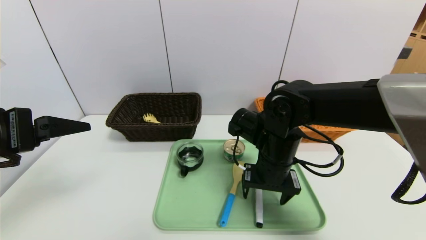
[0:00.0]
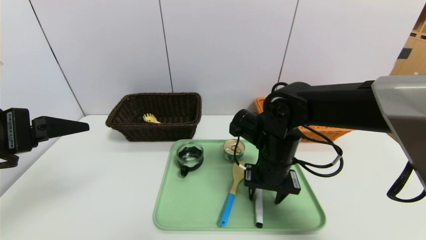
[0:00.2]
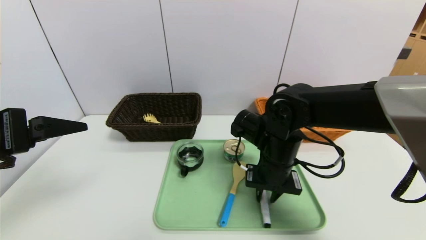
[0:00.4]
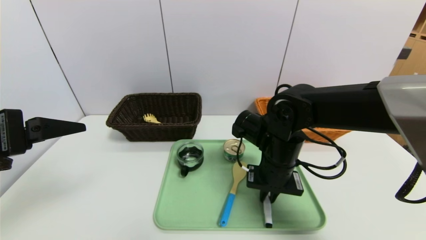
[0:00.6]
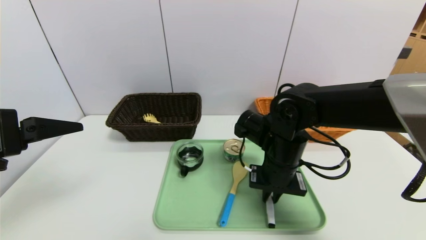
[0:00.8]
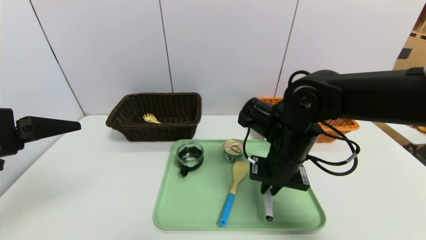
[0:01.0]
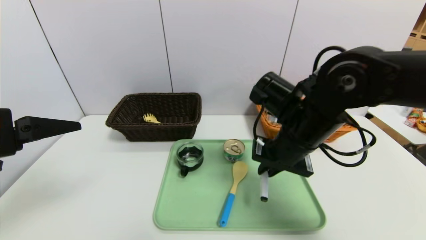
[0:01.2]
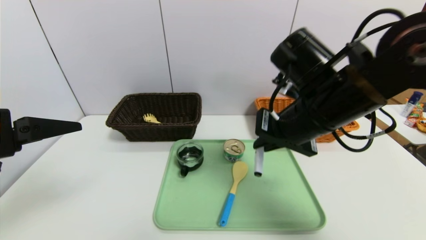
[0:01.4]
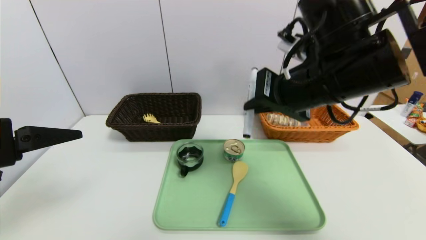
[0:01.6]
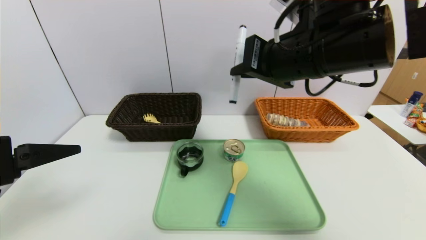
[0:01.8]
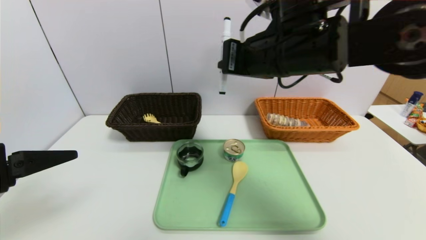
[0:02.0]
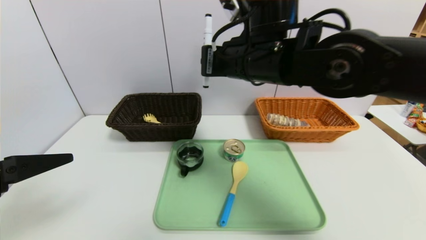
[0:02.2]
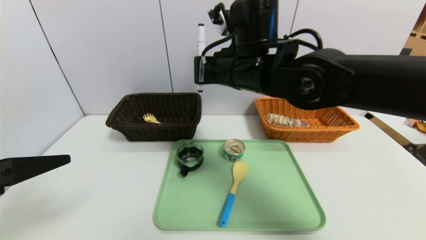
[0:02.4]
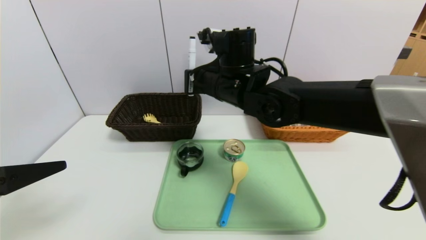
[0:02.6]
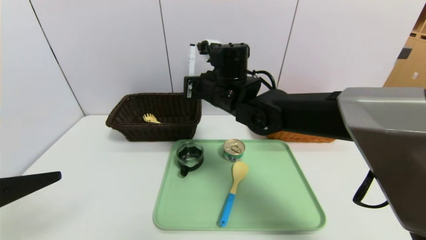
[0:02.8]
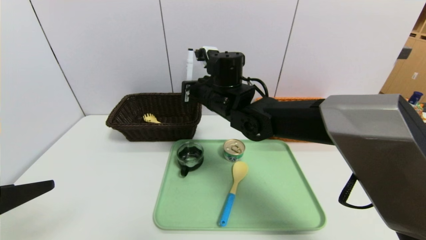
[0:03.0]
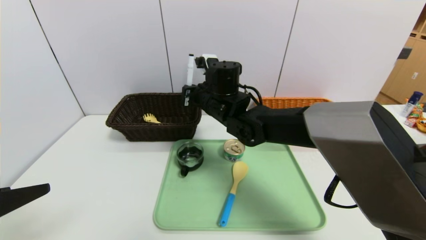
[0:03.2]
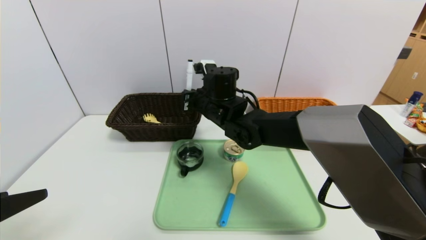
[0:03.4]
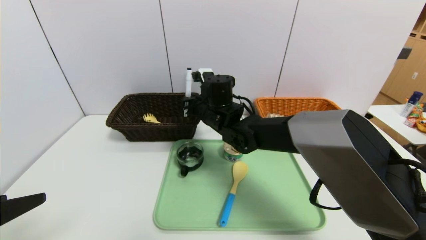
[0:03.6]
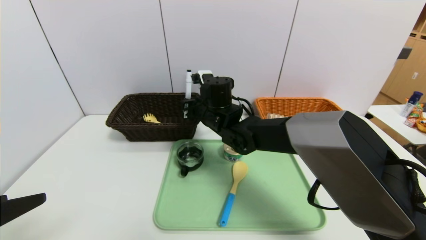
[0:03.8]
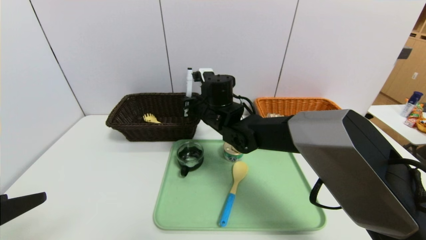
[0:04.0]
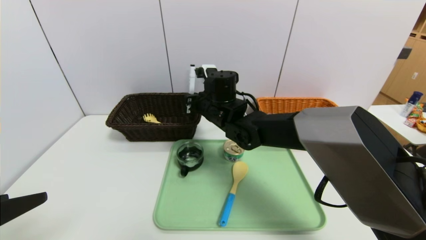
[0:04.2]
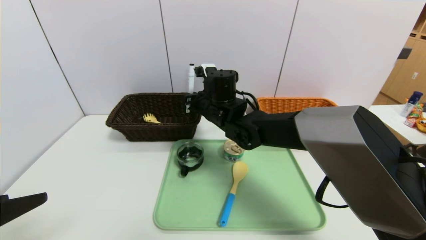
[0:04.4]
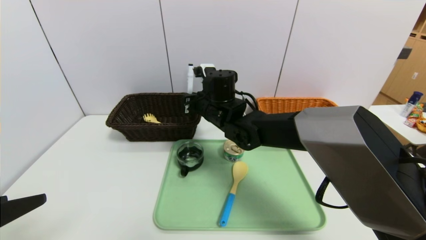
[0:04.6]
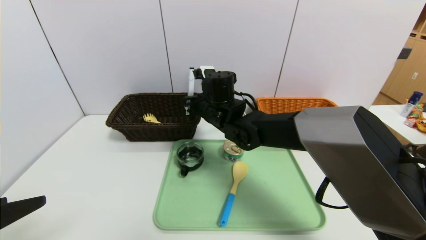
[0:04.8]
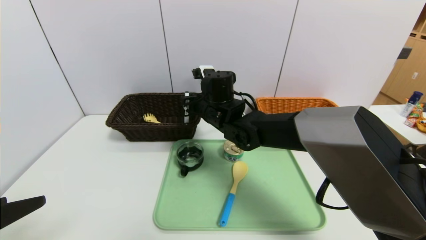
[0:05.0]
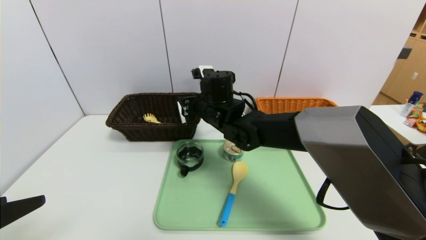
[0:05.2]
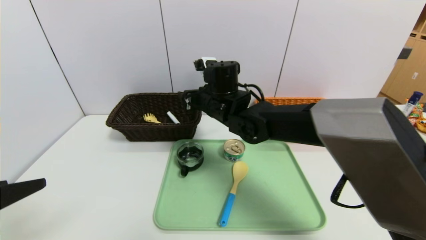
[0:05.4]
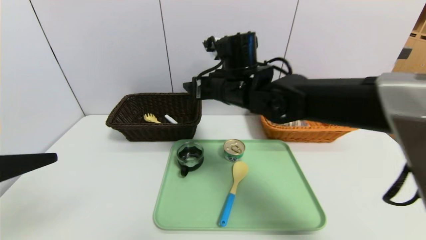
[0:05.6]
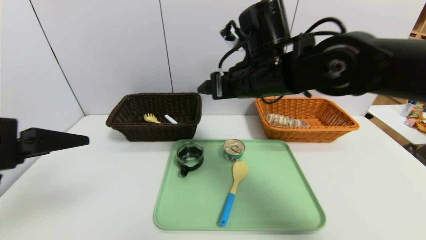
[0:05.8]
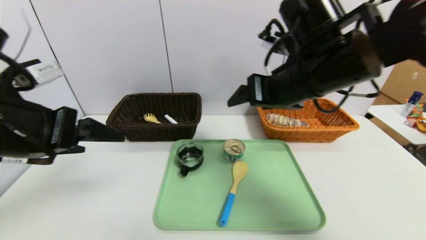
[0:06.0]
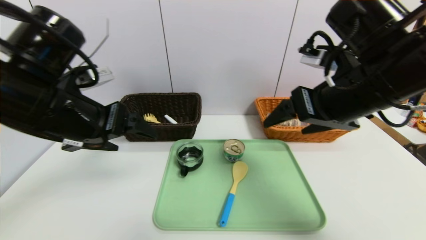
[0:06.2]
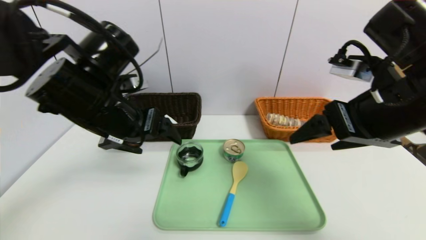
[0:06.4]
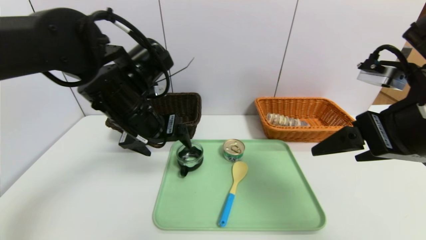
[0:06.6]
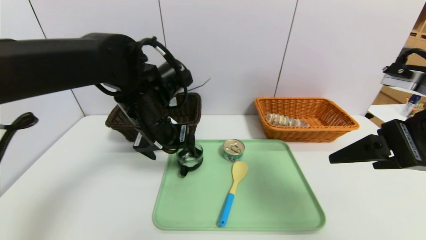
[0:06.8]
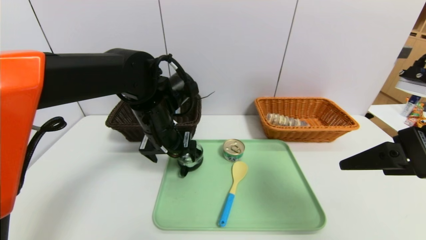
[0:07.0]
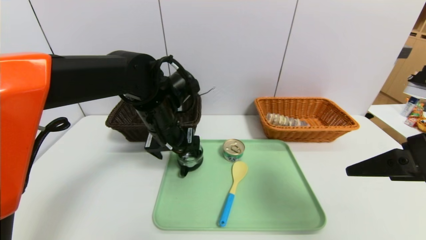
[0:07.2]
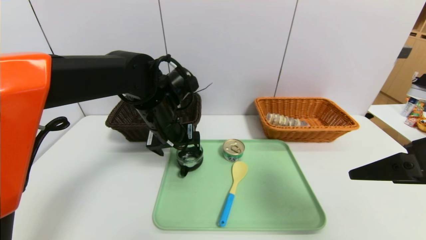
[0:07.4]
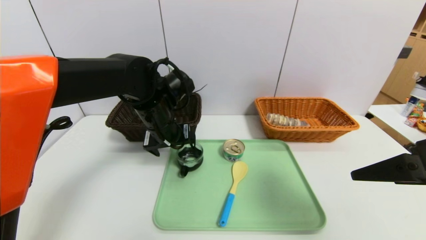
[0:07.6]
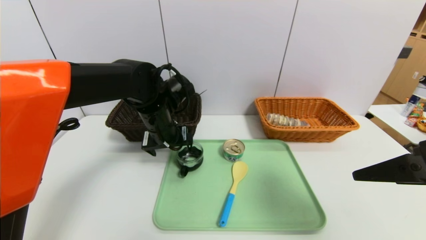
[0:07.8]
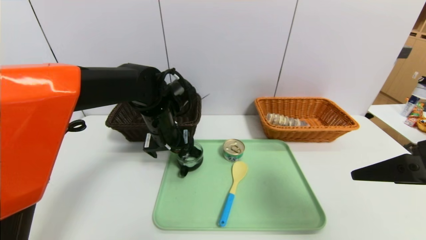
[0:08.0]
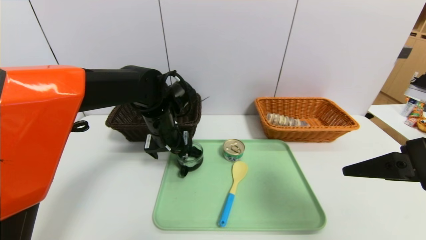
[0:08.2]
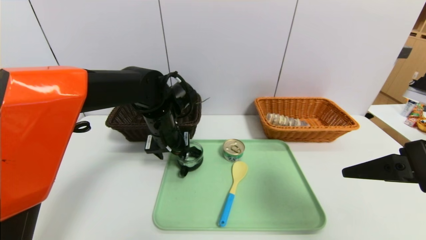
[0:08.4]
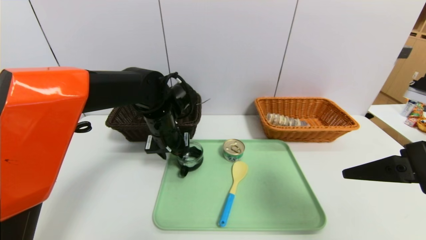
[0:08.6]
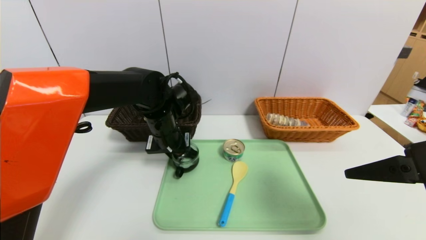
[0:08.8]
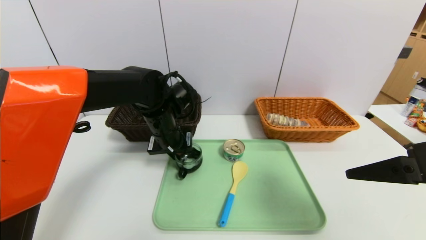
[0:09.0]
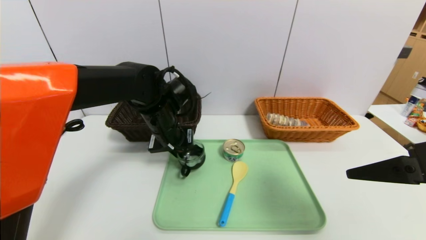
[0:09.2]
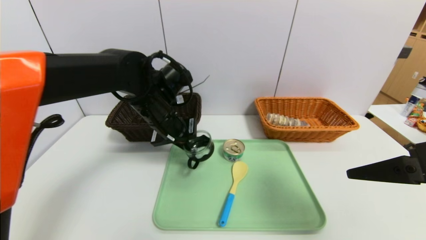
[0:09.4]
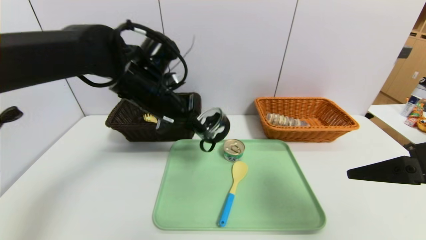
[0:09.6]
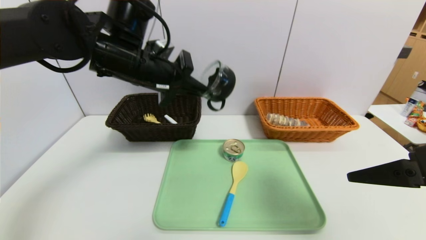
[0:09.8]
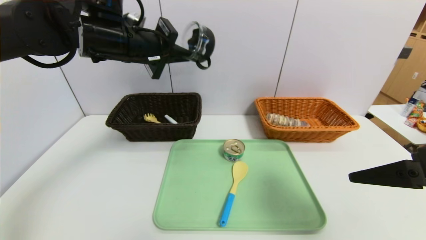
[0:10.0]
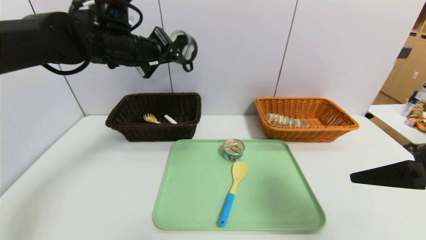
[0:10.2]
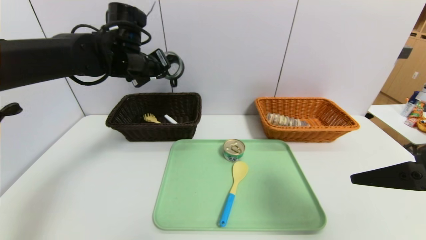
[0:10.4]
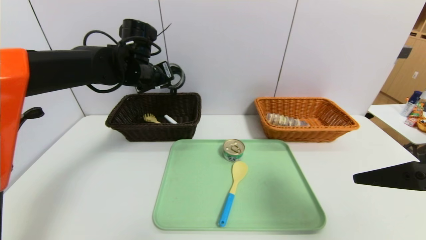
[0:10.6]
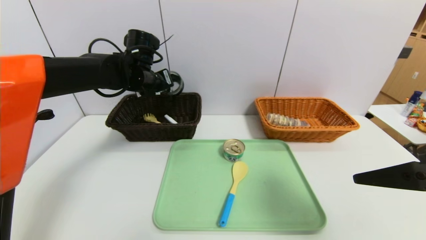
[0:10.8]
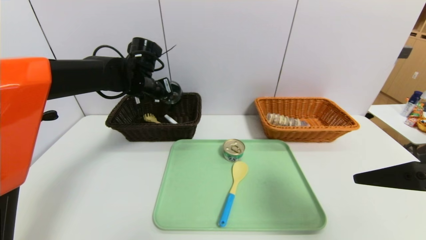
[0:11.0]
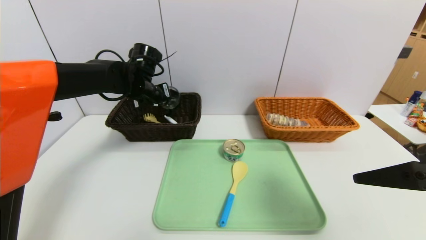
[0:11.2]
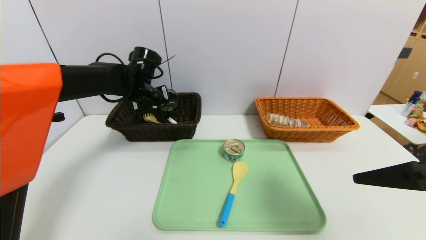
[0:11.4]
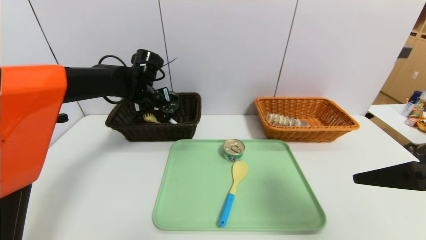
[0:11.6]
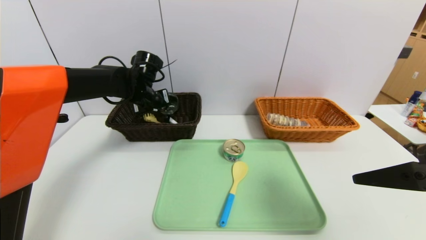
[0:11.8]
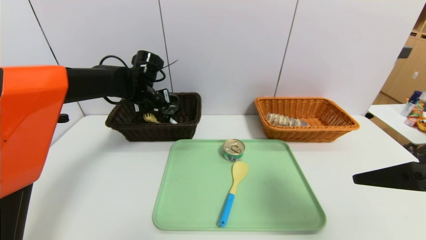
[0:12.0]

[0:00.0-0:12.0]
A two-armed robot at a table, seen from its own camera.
Task of the whole recording: place the food in the right basket with the right gripper, and place the non food items in the left basket with the left gripper.
Step, 0:00.0 to 0:05.2: Grasp the black marker and put it in the left basket.
0:00.0 to 0:01.6: The right gripper travels upward by roughly 15 cm, and closes its fingers.
0:01.6 to 0:03.0: The left gripper goes some 5 cm backward; the right gripper shifts some 20 cm to the left, forward and downward.
0:03.0 to 0:04.4: The grippers move only a little.
0:04.4 to 0:06.0: The left gripper is displaced forward and to the right by roughly 15 cm. Meanwhile the right gripper goes some 25 cm to the right, backward and upward, and opens.
0:06.0 to 0:07.6: The left gripper goes approximately 20 cm forward, to the right and downward. Meanwhile the right gripper travels backward and to the right by about 20 cm.
0:07.6 to 0:09.0: The left gripper closes up.
0:09.0 to 0:10.4: The left gripper travels upward and to the left by roughly 15 cm.
0:10.4 to 0:12.0: The left gripper goes some 10 cm downward.

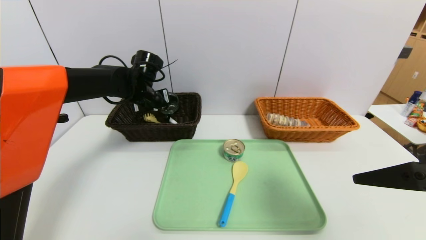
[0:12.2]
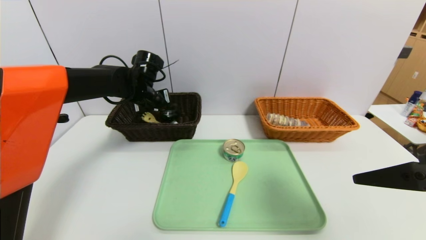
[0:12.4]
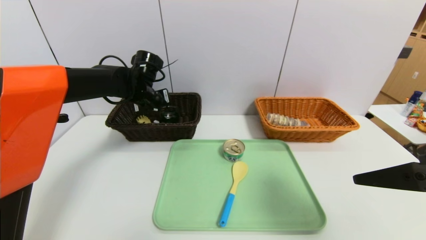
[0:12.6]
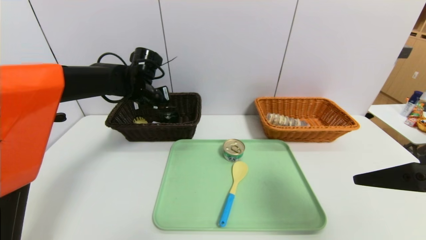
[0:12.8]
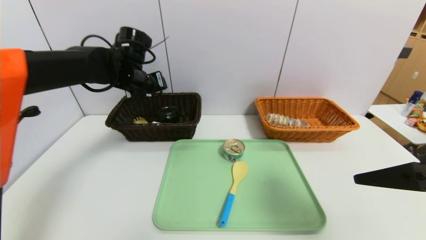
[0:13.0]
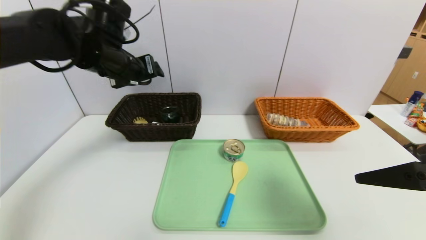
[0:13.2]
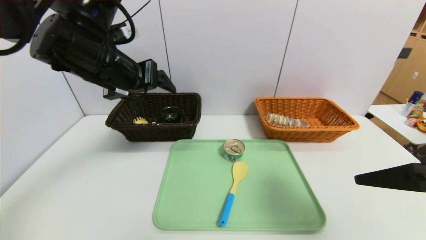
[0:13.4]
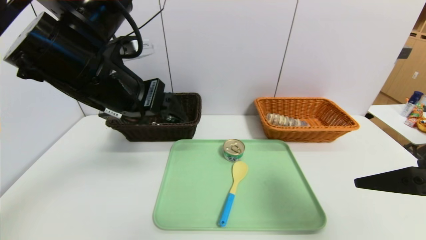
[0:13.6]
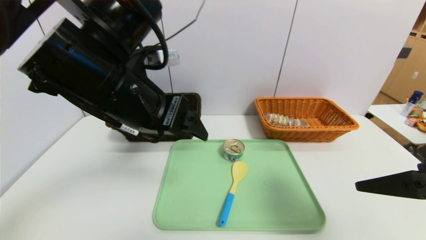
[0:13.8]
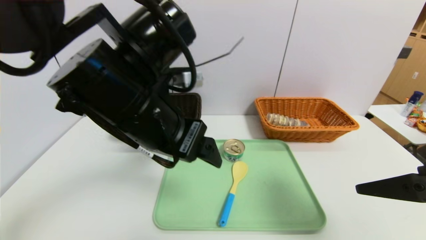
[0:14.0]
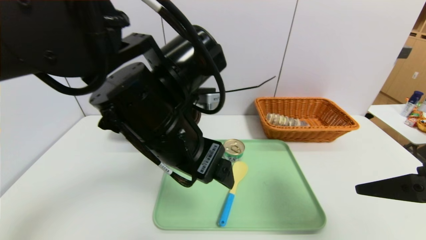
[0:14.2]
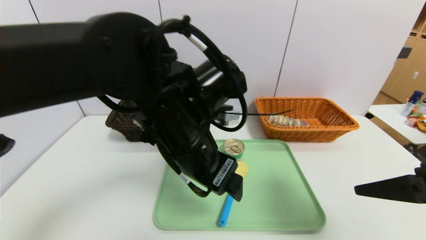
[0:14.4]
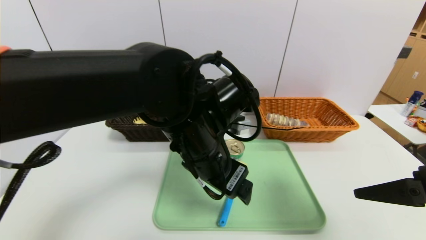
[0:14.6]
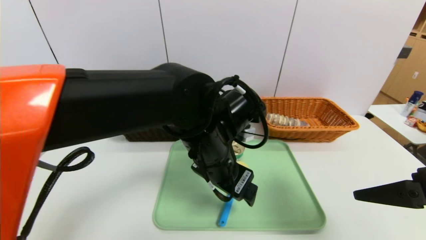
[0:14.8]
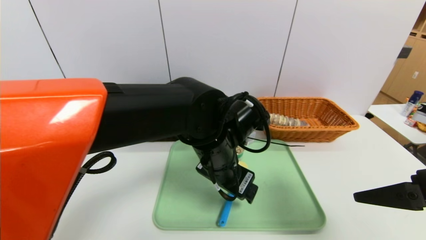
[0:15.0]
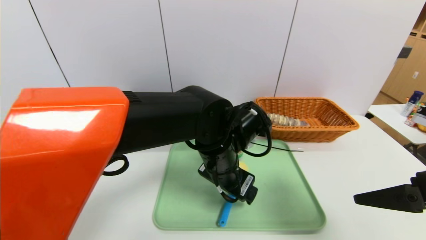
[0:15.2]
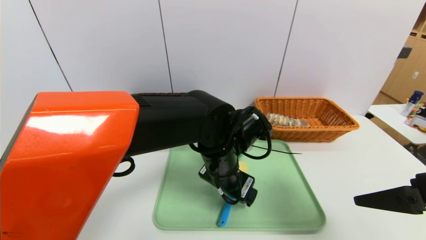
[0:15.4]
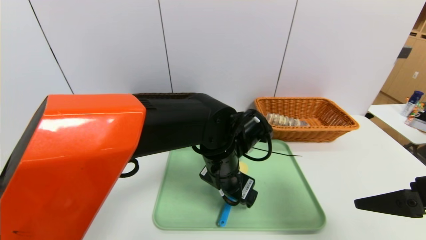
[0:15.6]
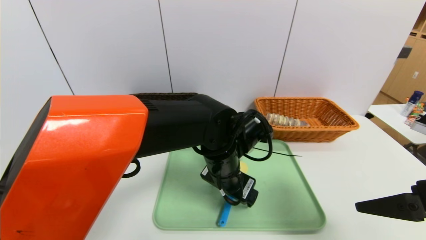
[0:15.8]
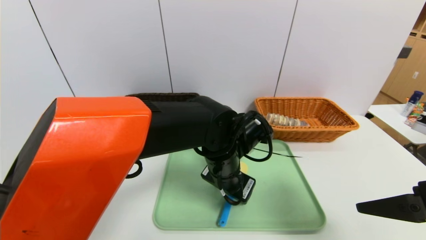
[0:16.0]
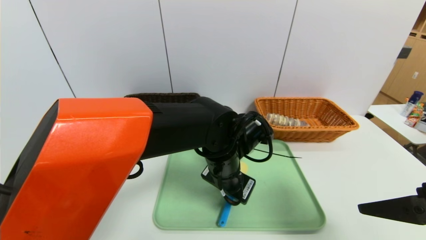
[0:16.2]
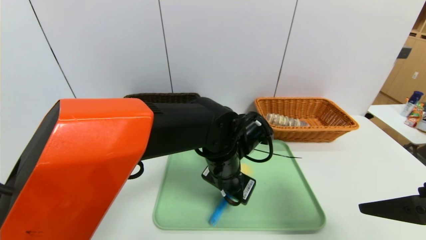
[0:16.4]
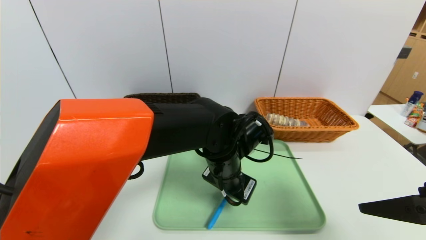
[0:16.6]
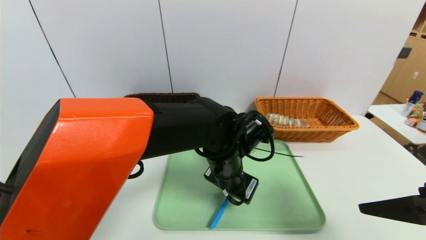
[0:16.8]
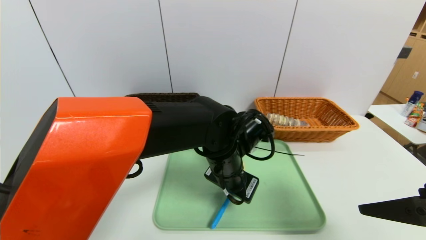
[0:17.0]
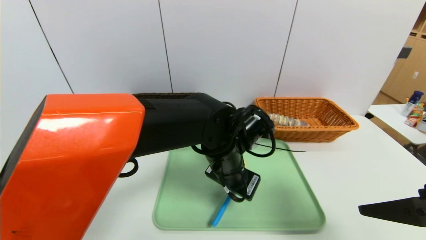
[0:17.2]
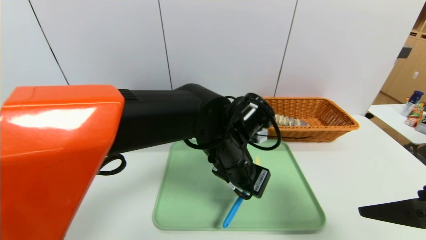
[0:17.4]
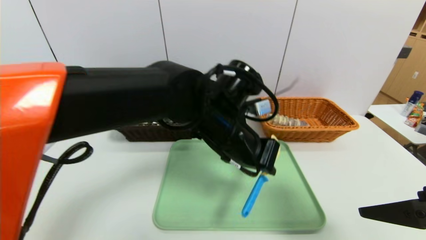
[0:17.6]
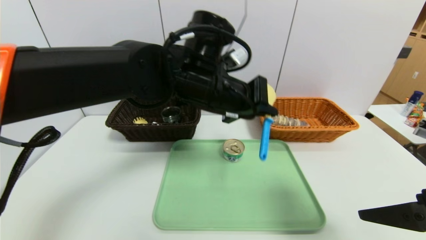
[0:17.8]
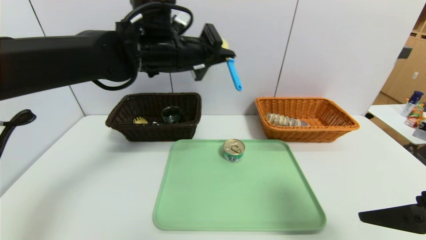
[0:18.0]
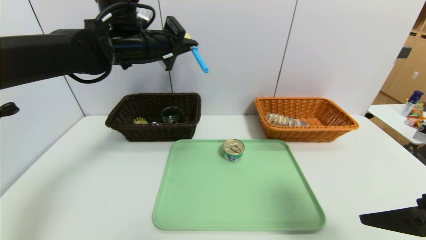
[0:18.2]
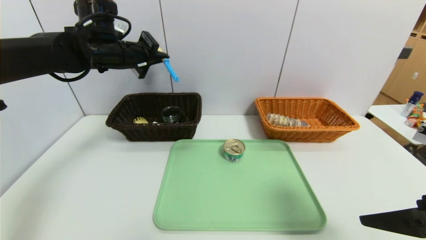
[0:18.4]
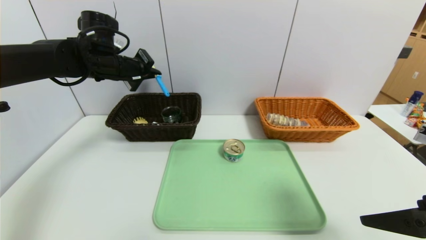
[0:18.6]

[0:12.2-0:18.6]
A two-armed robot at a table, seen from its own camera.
Task of the whole recording: place the food in the right basket with the right gripper, and place the non food items in the left basket with the left gripper.
0:12.2 to 0:13.8: The left gripper travels backward and upward by about 25 cm, and opens.
0:13.8 to 0:15.4: The left gripper shifts roughly 20 cm downward and to the right.
0:15.4 to 0:17.0: The left gripper closes its fingers.
0:17.0 to 0:18.6: The left gripper goes about 30 cm to the left, forward and upward.
